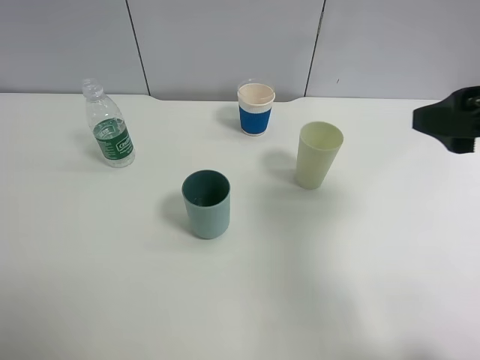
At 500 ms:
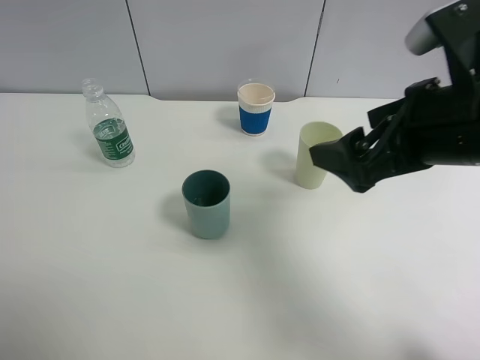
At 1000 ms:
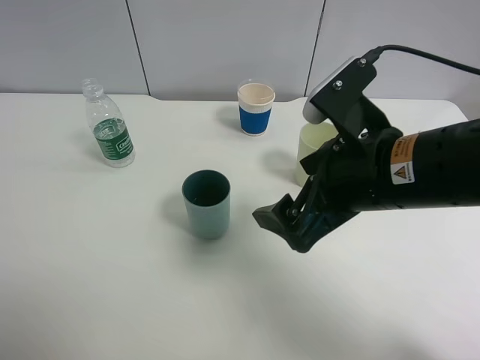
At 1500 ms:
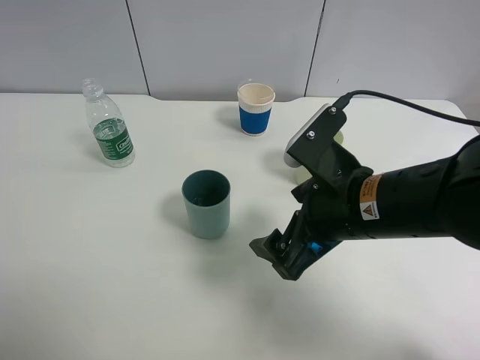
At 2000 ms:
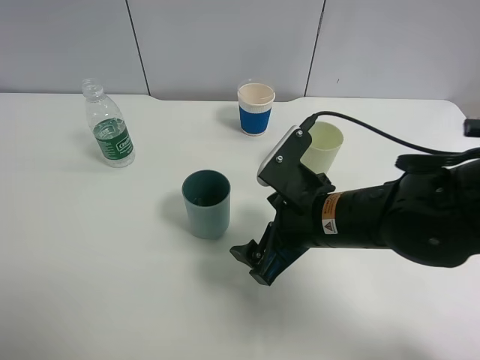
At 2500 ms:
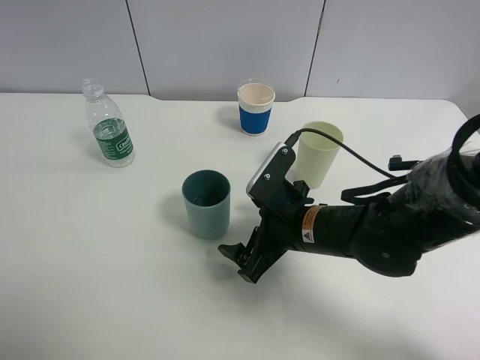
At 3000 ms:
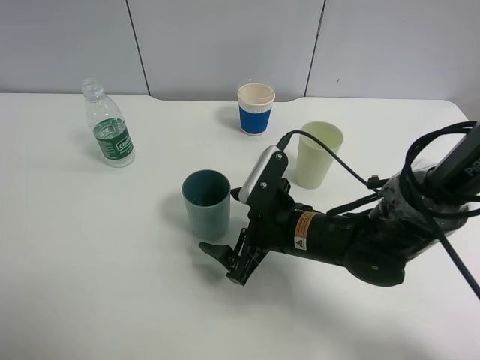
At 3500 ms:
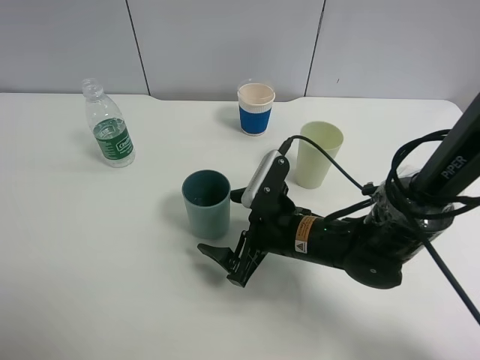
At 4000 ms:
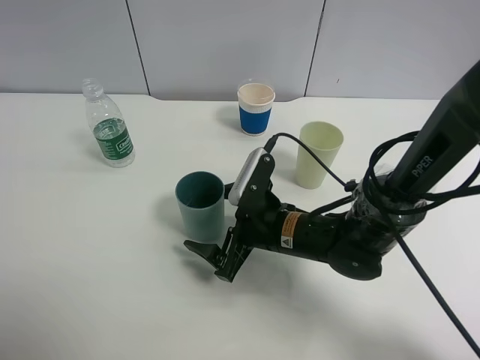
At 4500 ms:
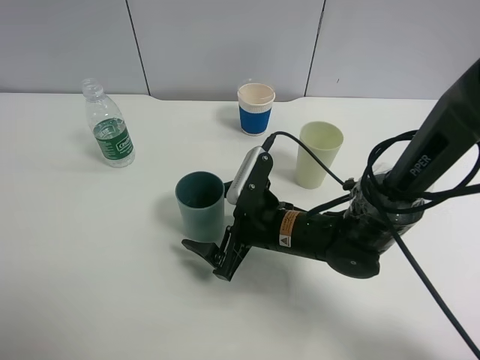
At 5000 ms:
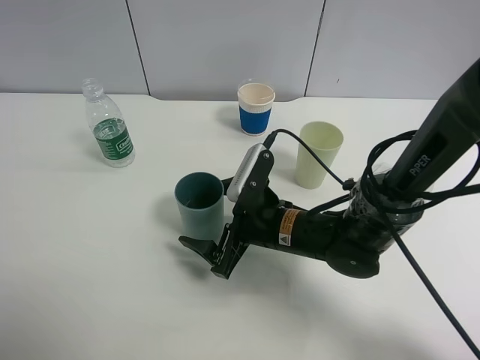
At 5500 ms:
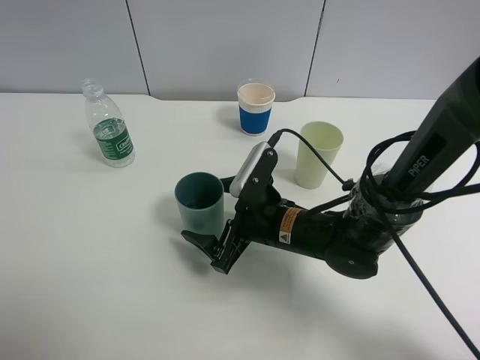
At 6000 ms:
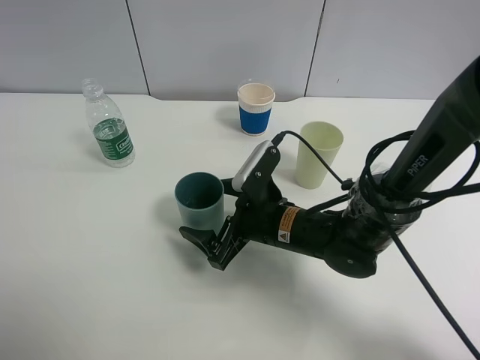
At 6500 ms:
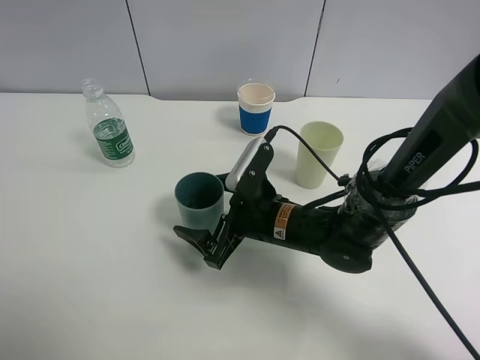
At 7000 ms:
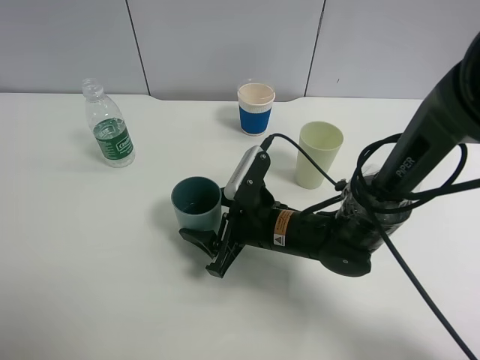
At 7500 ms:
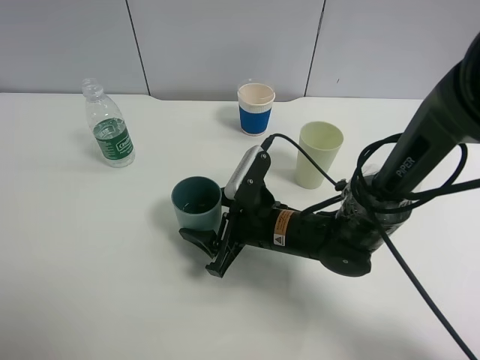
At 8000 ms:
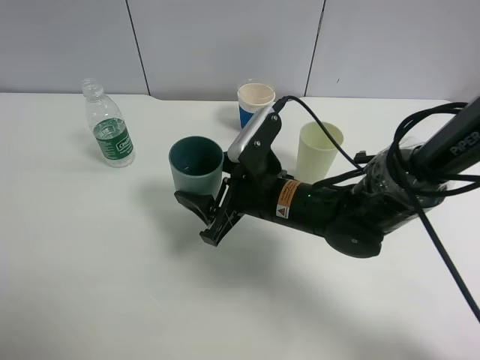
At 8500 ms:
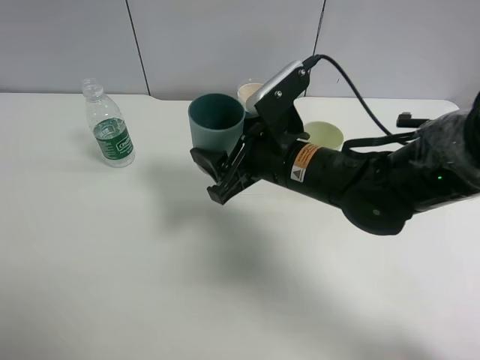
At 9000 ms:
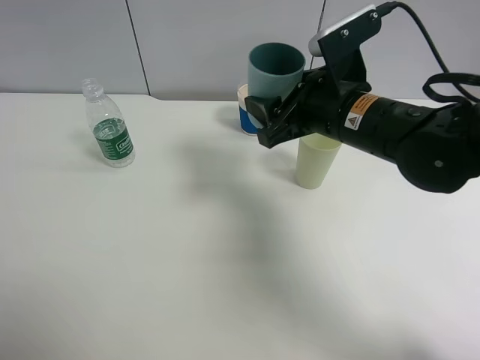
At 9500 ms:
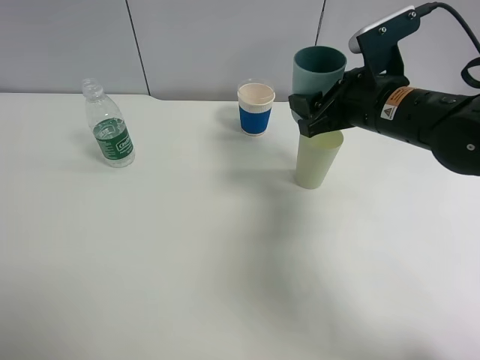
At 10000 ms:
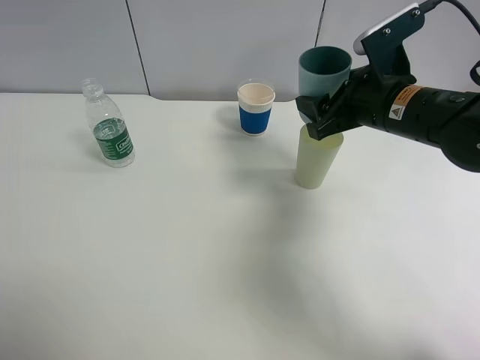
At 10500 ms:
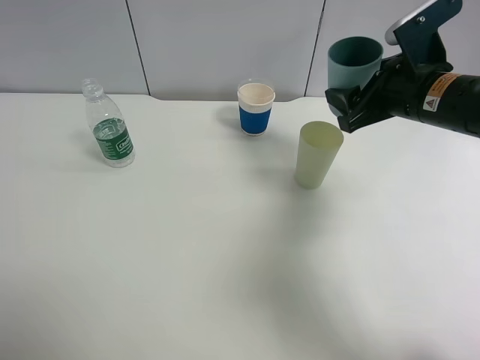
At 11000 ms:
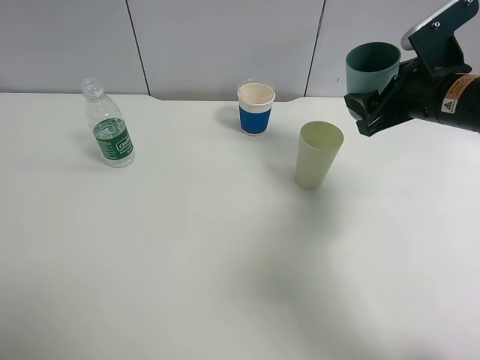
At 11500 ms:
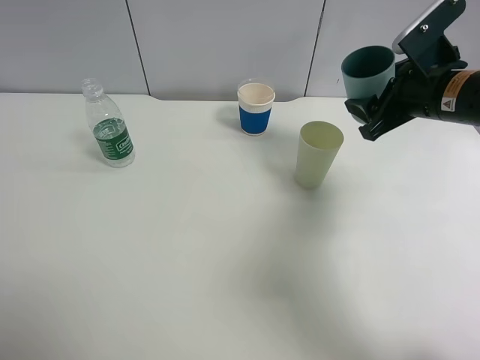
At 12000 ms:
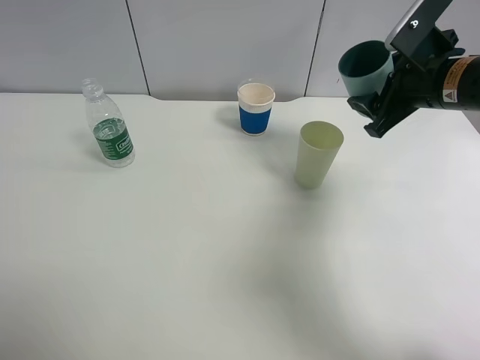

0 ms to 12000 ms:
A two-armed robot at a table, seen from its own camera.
Task of the whole recording: use a clamp to hold the bottle of the drink, pour the beverage into a random cup, then clamp the cup containing the drink and pour the drink into another random cup.
Step, 0 ms to 7500 ms: Pick up the blue plastic cup with right gripper.
0 ms to 2000 ms: The right gripper goes some 25 cm to the left and downward.
2000 ms to 4000 ms: The right gripper goes about 10 cm downward.
4000 ms to 6000 ms: There are only small adjustments of the grippers.
6000 ms to 8000 ms: The right gripper is displaced upward by some 5 cm, and closes its fingers.
8000 ms to 10000 ms: The right gripper is displaced to the right, upward and forward by roughly 20 cm.
10000 ms to 12000 ms: The right gripper travels to the right by roughly 5 cm.

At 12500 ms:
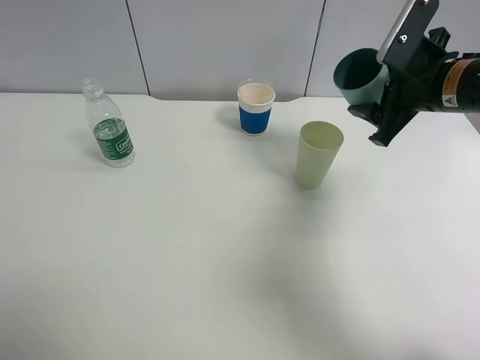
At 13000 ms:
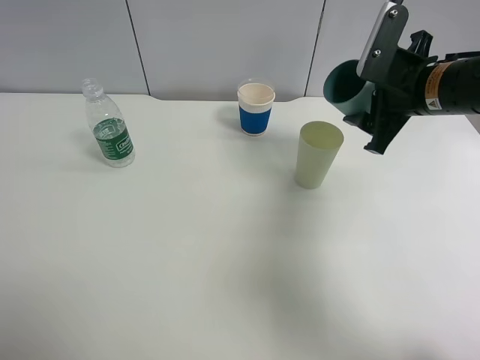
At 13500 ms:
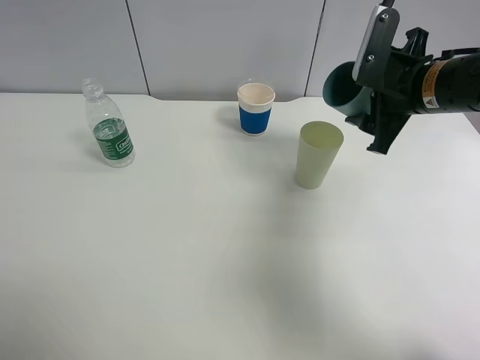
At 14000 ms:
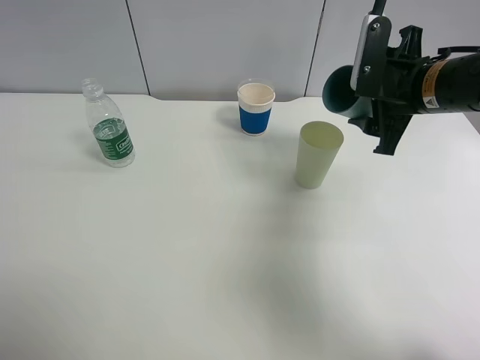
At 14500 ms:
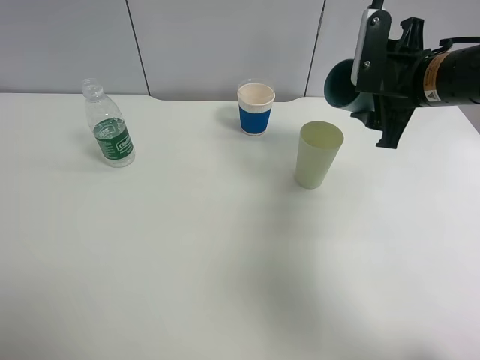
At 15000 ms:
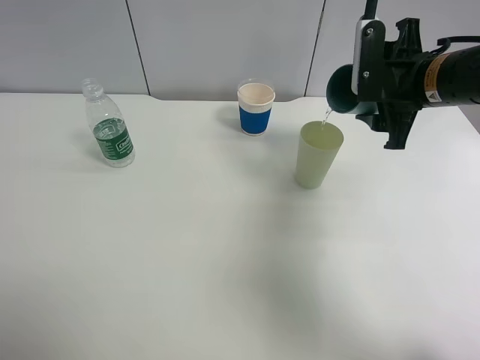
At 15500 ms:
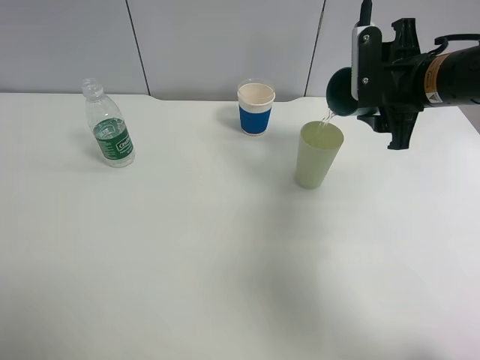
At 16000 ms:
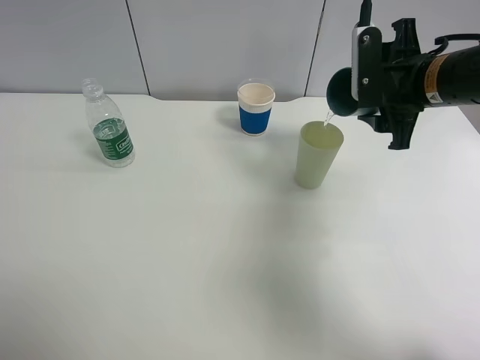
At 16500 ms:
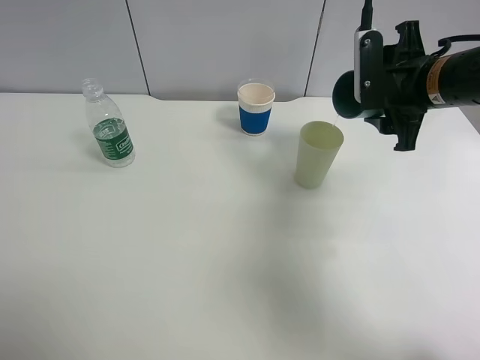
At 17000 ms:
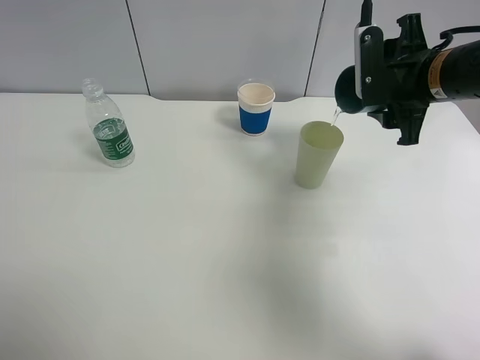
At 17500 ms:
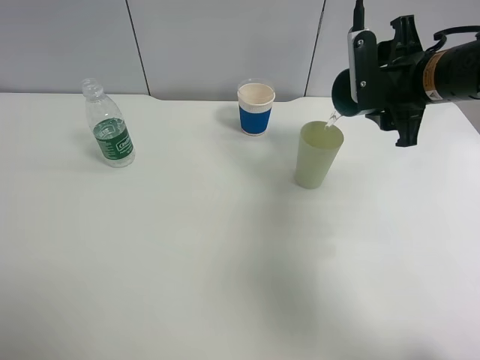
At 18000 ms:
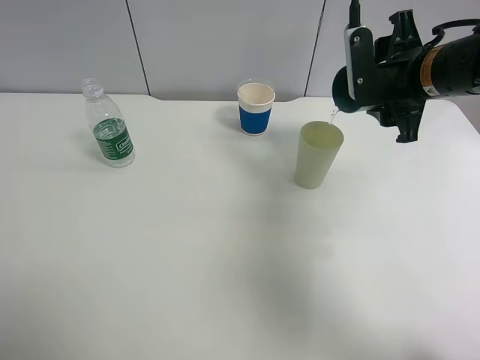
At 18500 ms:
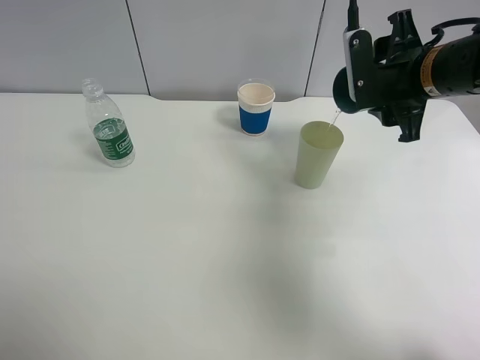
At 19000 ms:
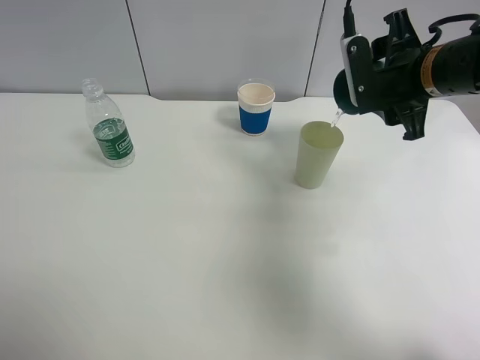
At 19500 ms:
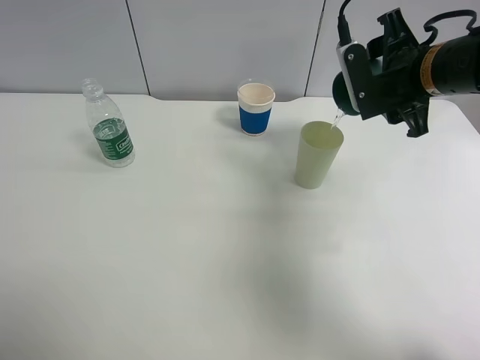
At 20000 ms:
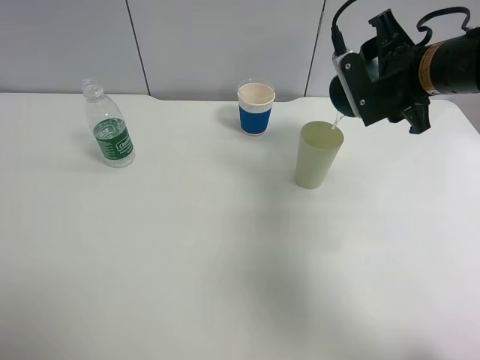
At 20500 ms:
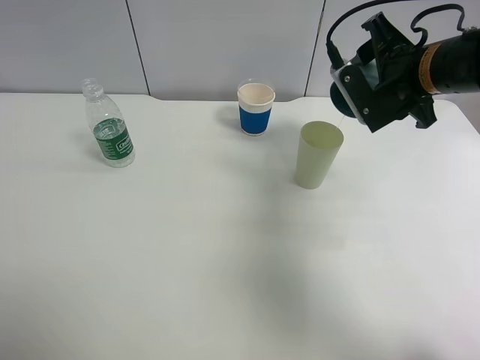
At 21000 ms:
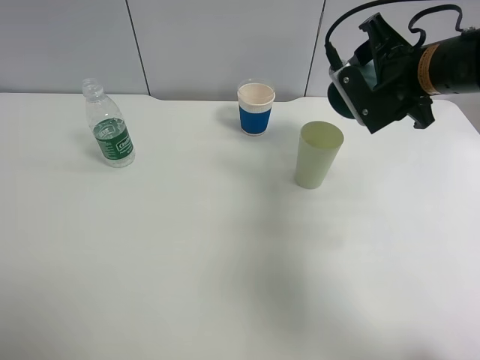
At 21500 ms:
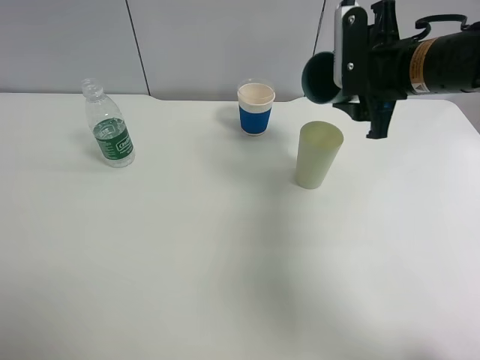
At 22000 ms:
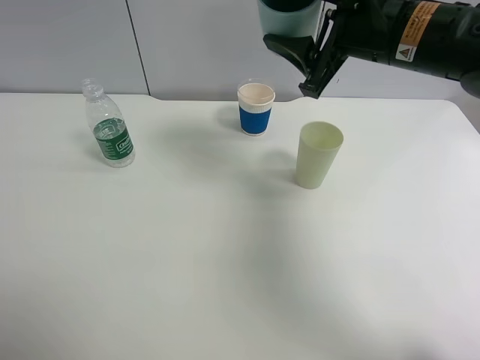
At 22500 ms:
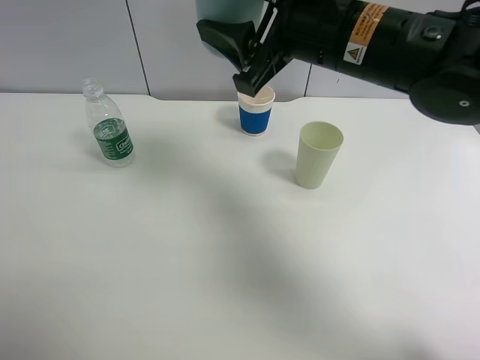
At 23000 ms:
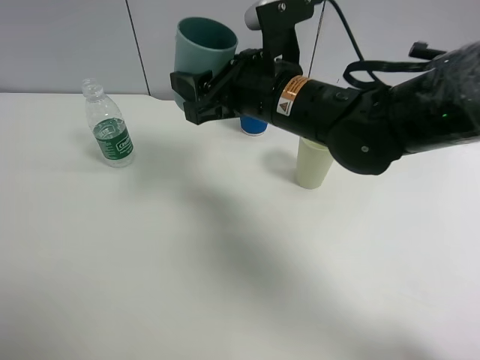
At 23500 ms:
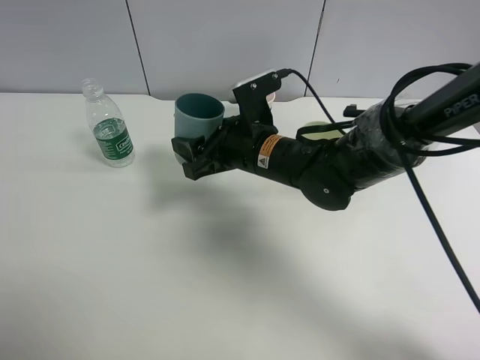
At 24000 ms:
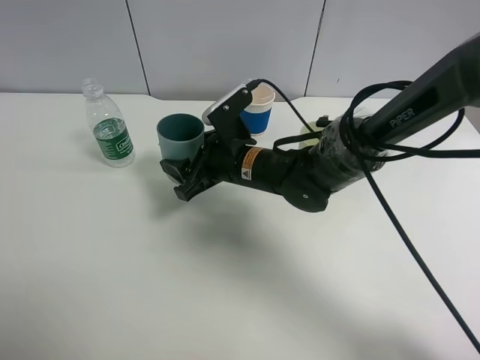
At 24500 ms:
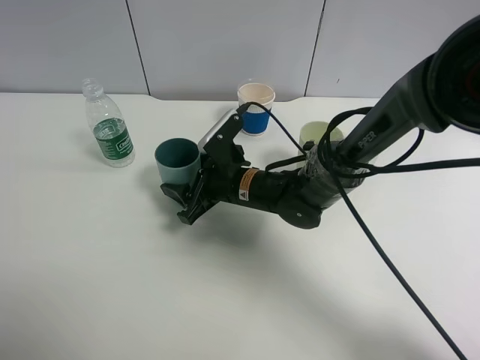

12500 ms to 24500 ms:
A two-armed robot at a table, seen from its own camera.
Task of the whole recording: use a clamp to hold the bottle of the drink, pour the beverage into a random cup, then clamp the cup containing the drink and pour the drink into another random cup.
Step, 12500 ms to 21500 ms: Pour water into the green plastic cup with right gripper.
14500 ms to 16500 ms: There are only small adjustments of the grippers.
16500 ms to 18500 ms: The grippers stay close to where they were, moving slightly.
20500 ms to 22500 ms: The right gripper goes roughly 15 cm to the left and backward.
22500 ms to 24500 ms: The right gripper moves downward, about 25 cm.

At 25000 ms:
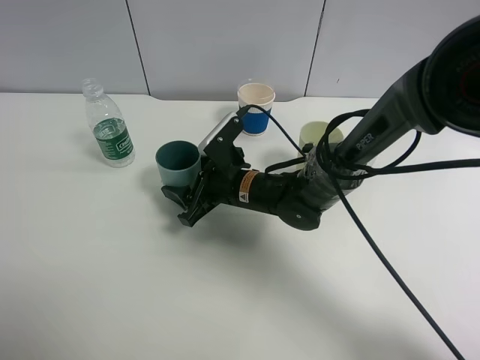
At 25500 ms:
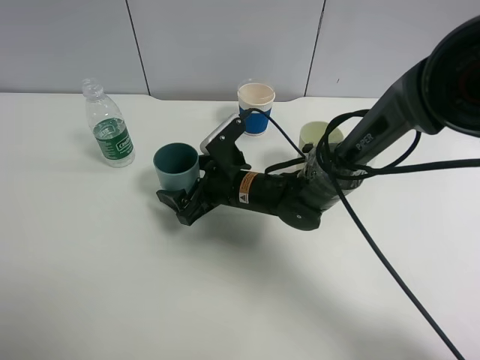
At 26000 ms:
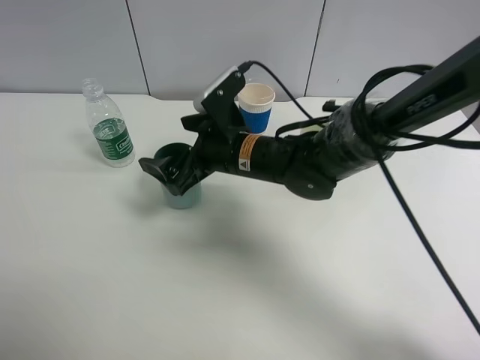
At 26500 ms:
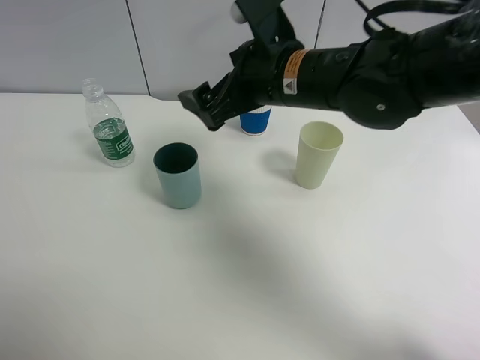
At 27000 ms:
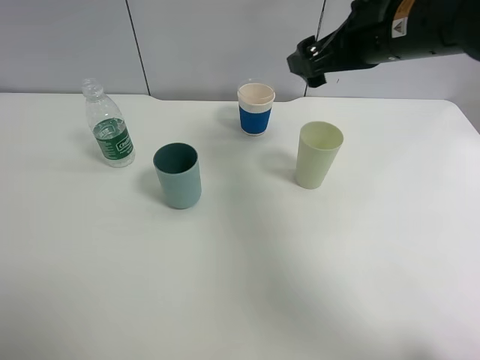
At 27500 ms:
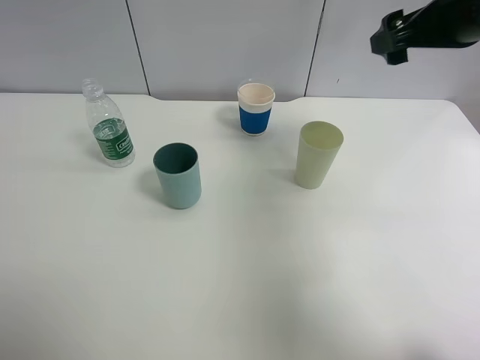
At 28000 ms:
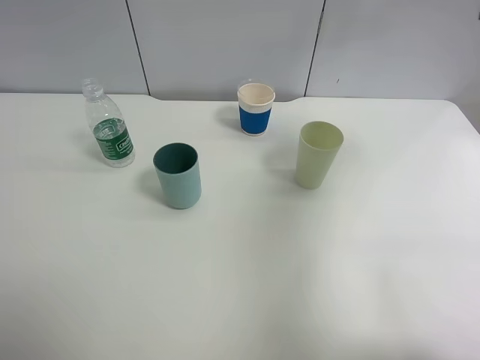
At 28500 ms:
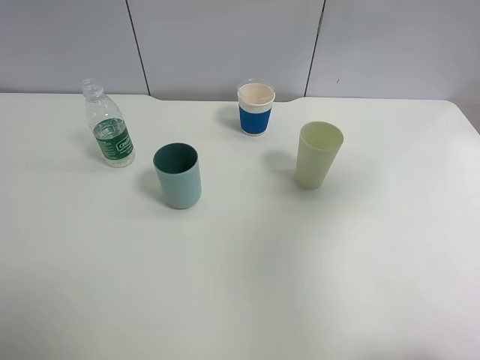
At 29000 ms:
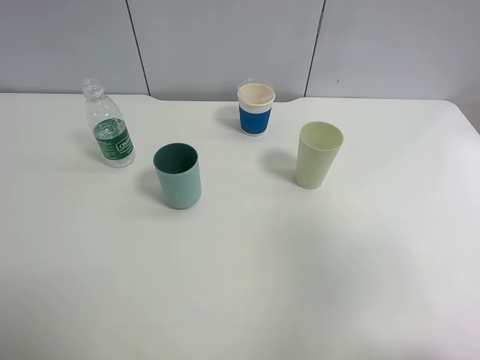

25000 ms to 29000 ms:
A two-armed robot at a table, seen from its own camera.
Task of the whole recording: use a clamp to hold the bottle of the drink, pour the beverage into a random cup, then clamp the cup containing the drink and pour the drink into another random cup.
25000 ms to 27000 ms: The right gripper is displaced upward and to the right by roughly 30 cm, and opens its fingers.
27000 ms to 29000 ms: The right gripper goes some 30 cm backward and to the right.
